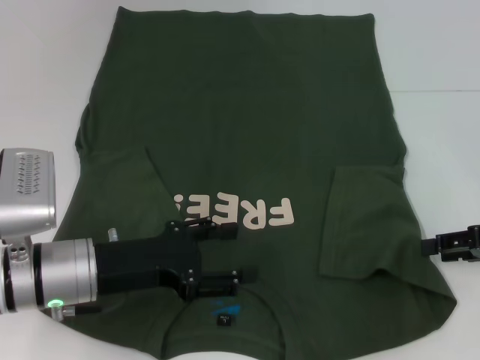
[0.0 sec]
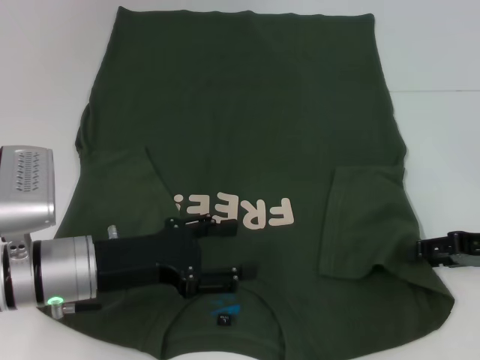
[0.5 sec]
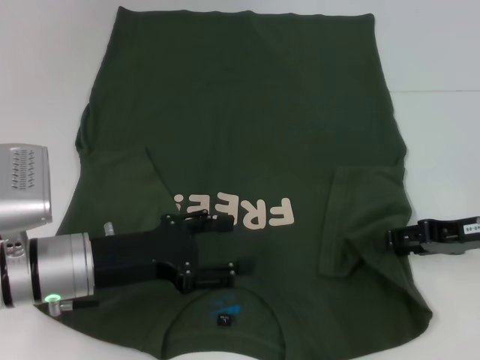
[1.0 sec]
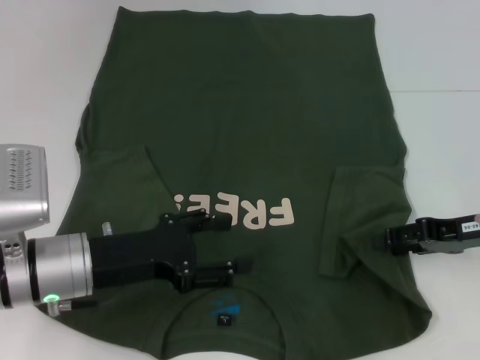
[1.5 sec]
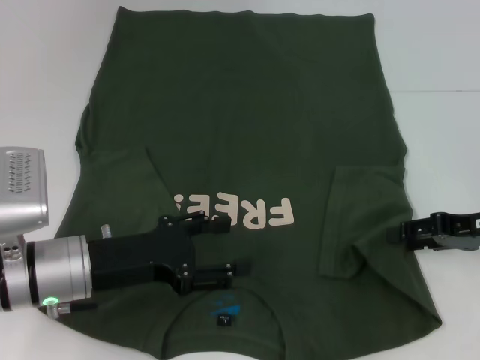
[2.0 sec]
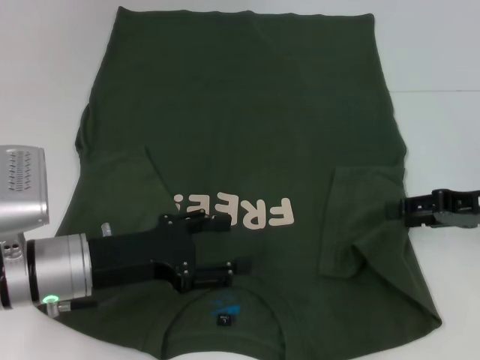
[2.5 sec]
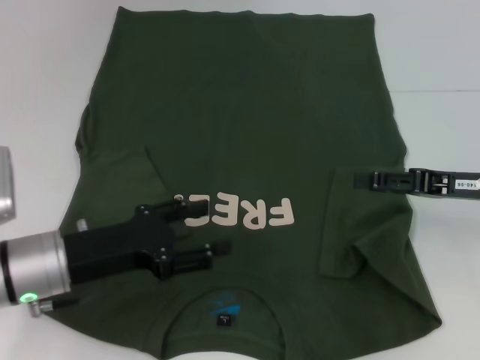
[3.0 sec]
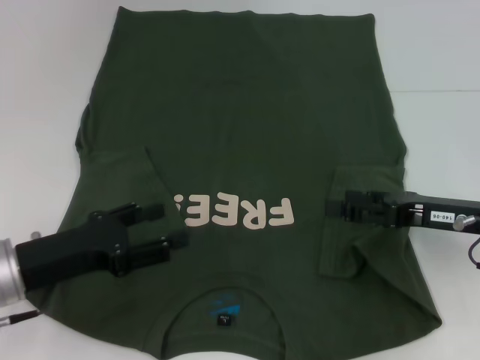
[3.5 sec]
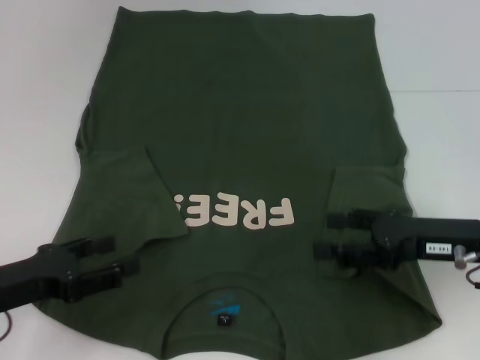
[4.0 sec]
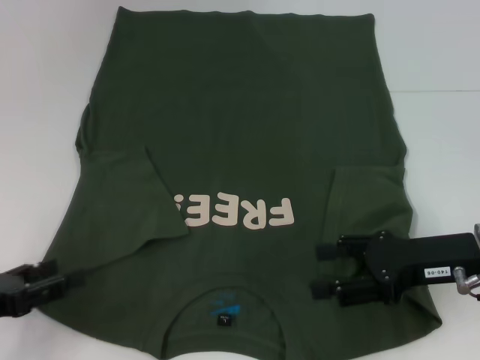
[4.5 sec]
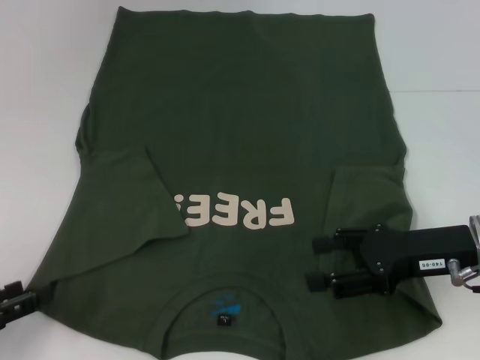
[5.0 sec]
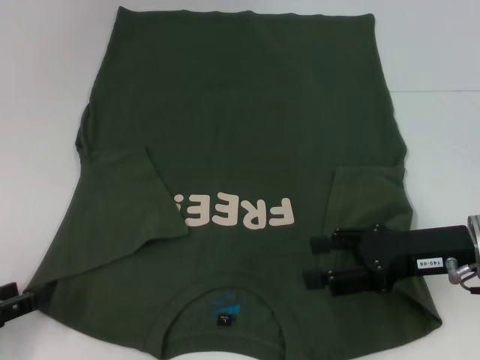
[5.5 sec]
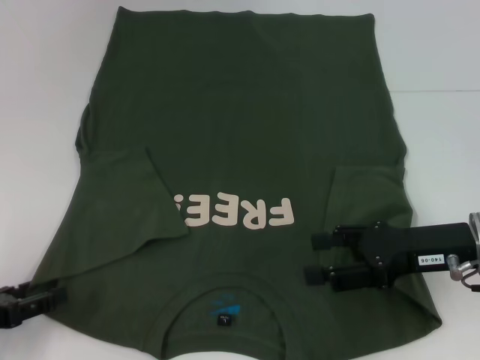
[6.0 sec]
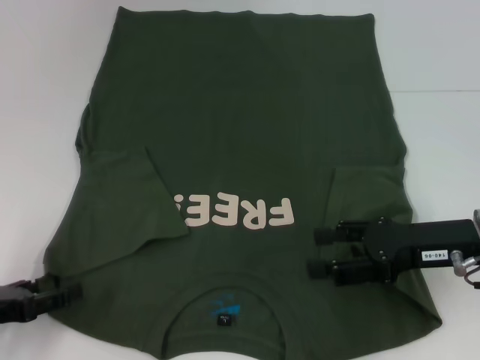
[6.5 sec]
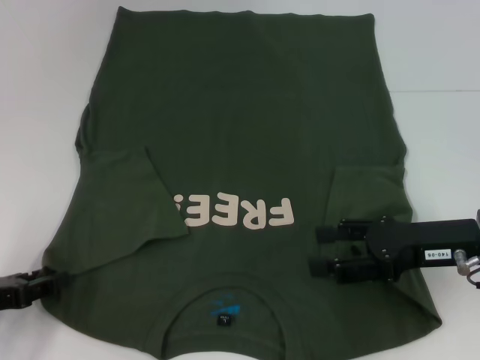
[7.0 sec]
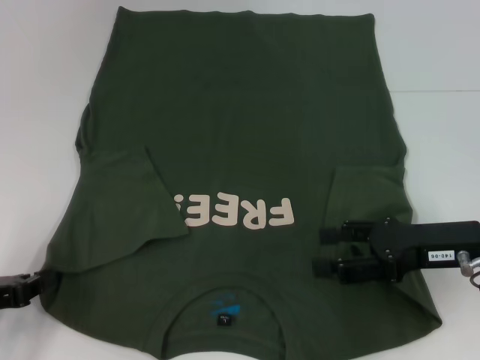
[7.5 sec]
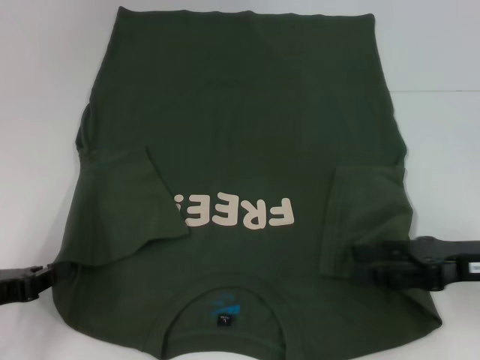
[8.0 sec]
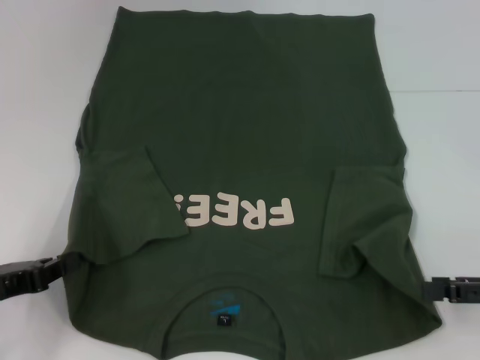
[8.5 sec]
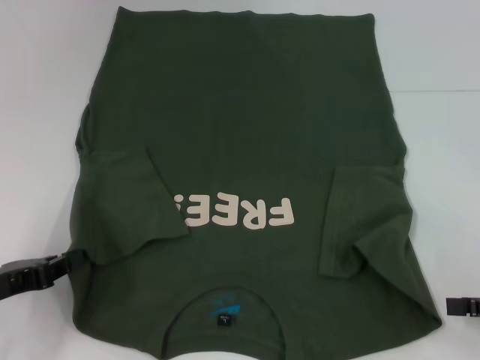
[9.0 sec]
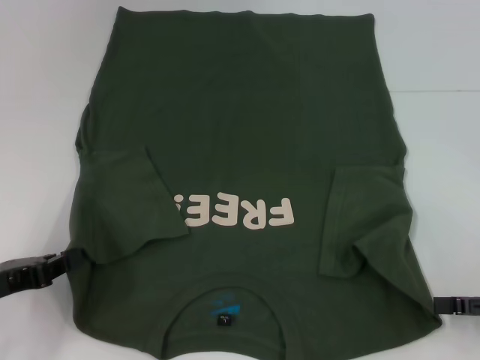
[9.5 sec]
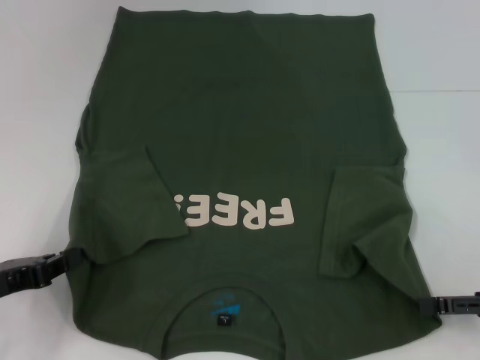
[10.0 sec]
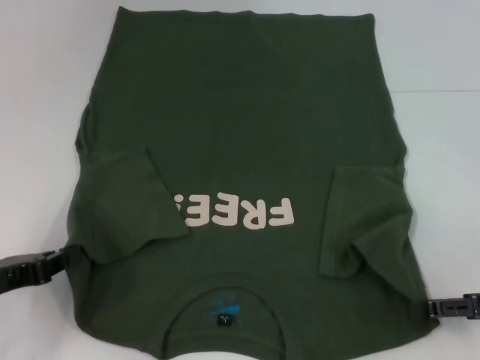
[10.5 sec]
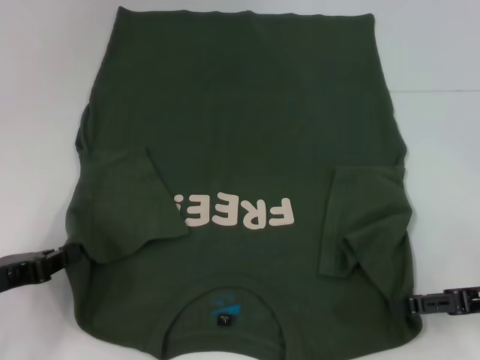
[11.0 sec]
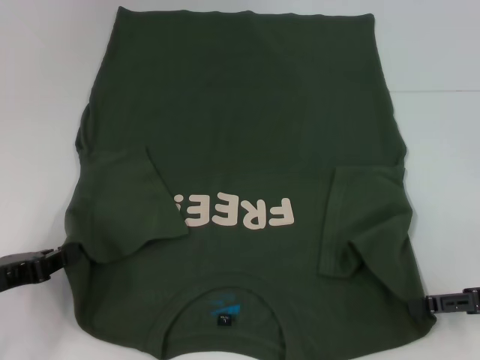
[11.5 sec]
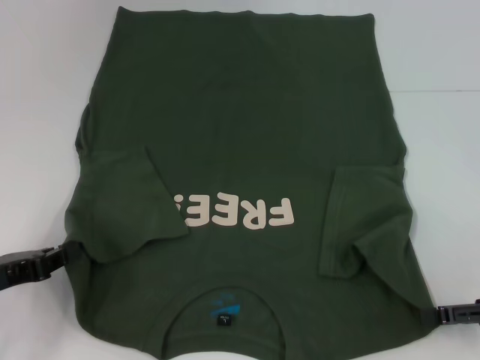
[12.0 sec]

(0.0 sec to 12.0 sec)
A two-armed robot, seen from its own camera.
Step, 0.0 sec - 8.0 sec: Grab the bottom left corner with your left hand.
0.0 sec - 2.0 sec: The grippers make only small movements.
2.0 sec - 4.0 sec: The left gripper shifts about 10 cm to the left. Meanwhile the right gripper heads to the left, covering about 5 cm.
4.0 sec - 6.0 sec: The left gripper shifts approximately 5 cm to the left.
6.0 sec - 8.0 sec: The left gripper closes up.
8.0 sec - 10.0 sec: The right gripper moves to the right, about 5 cm.
10.0 sec - 12.0 sec: There are only small adjustments of the grippers.

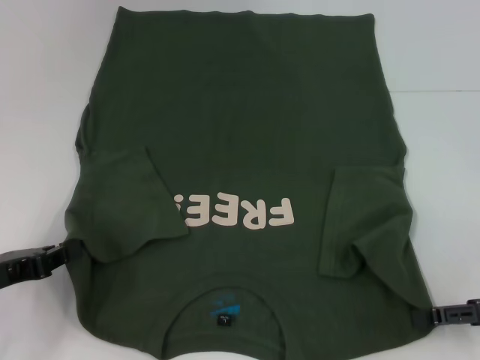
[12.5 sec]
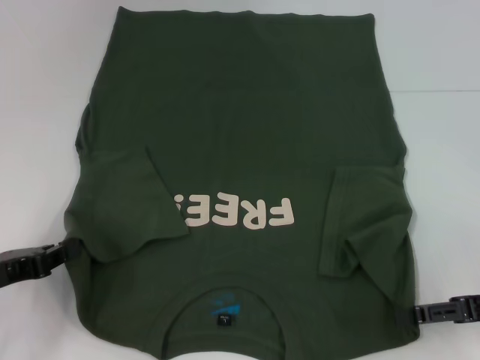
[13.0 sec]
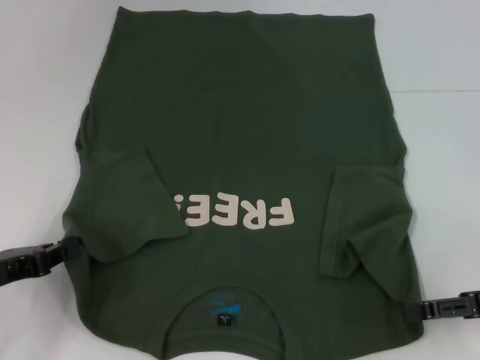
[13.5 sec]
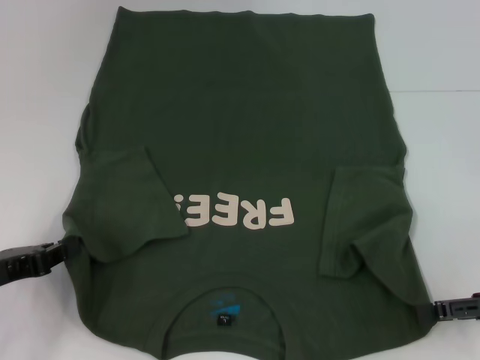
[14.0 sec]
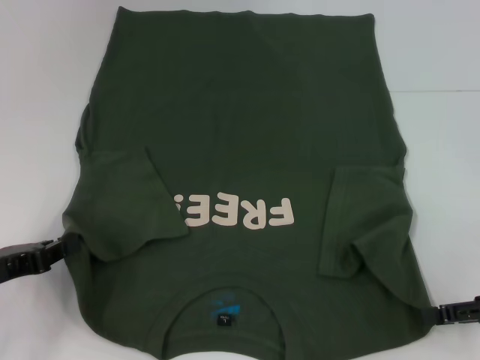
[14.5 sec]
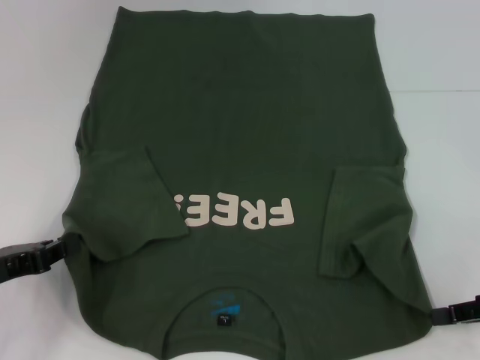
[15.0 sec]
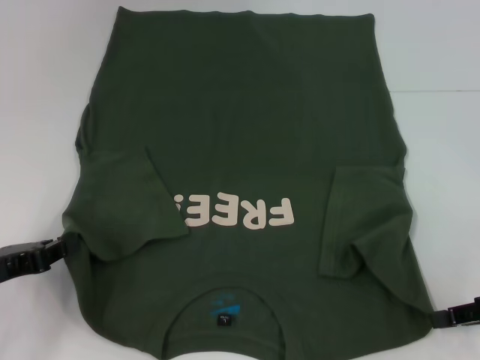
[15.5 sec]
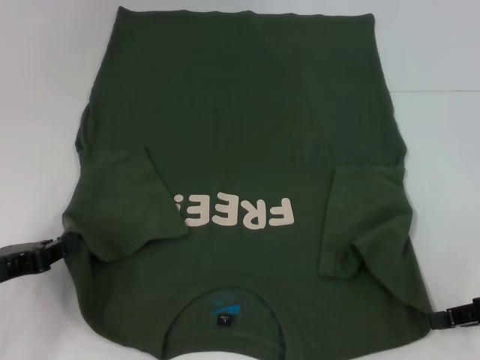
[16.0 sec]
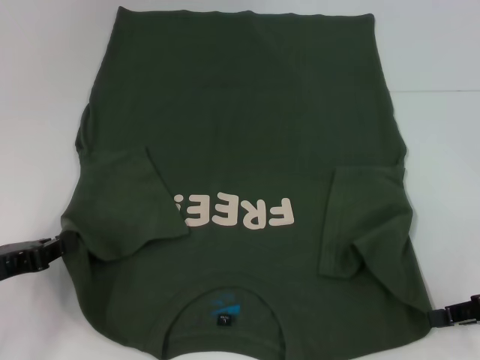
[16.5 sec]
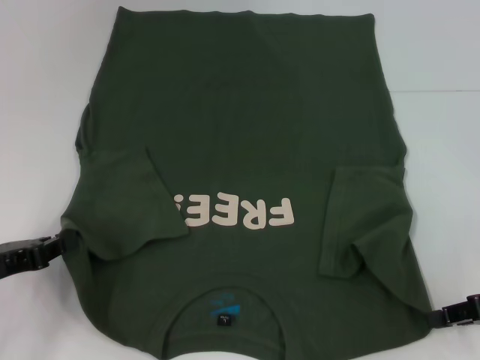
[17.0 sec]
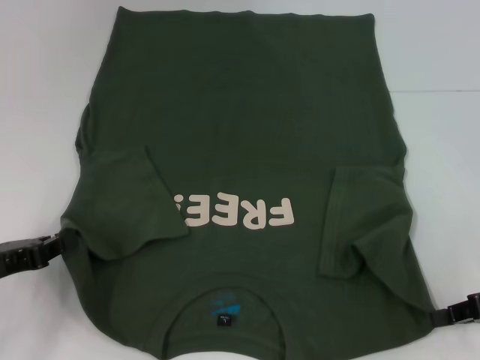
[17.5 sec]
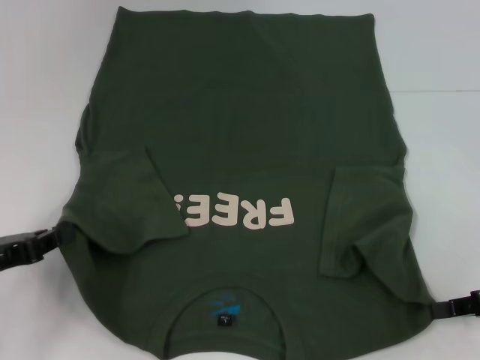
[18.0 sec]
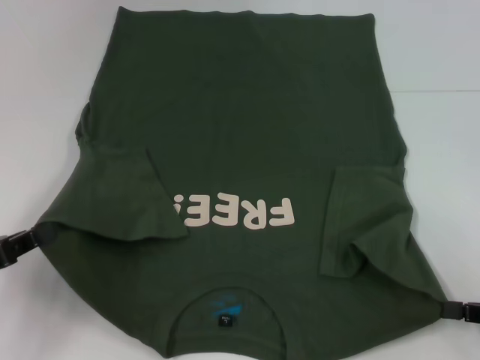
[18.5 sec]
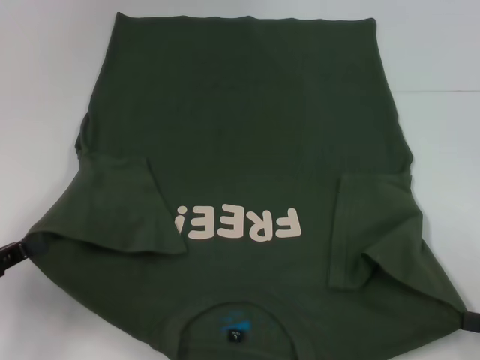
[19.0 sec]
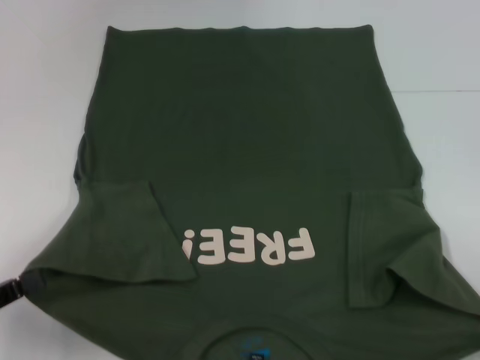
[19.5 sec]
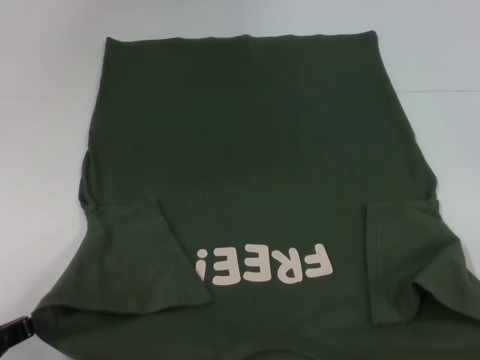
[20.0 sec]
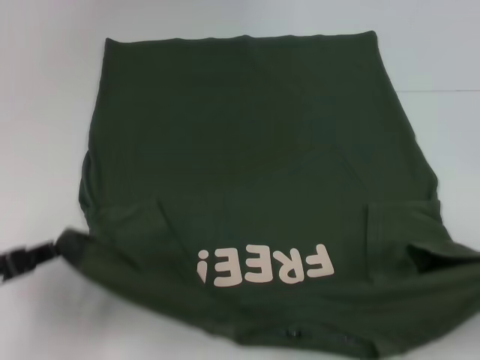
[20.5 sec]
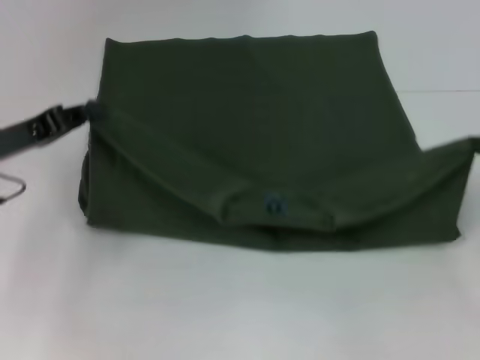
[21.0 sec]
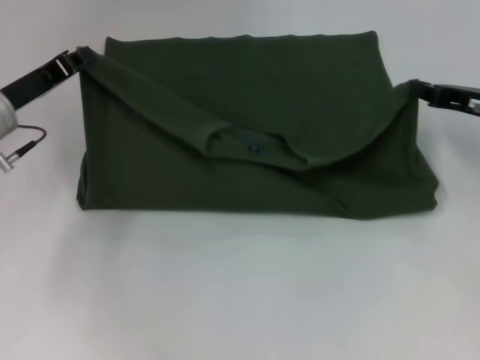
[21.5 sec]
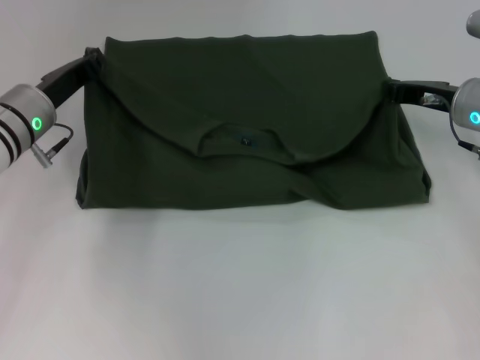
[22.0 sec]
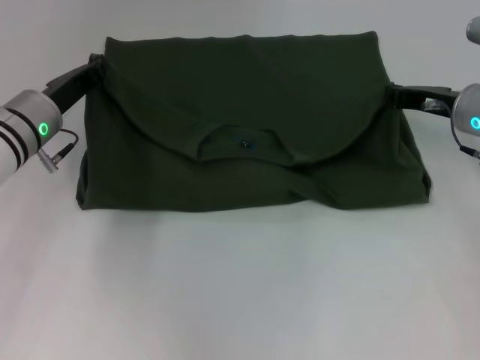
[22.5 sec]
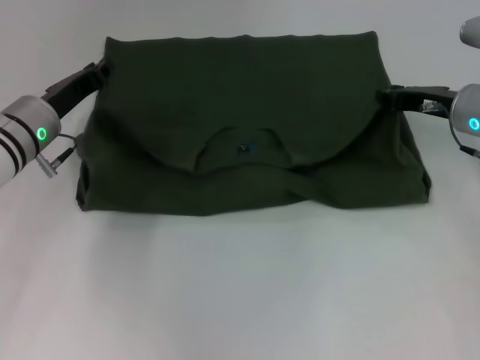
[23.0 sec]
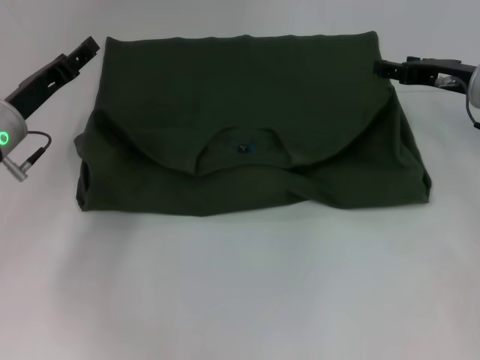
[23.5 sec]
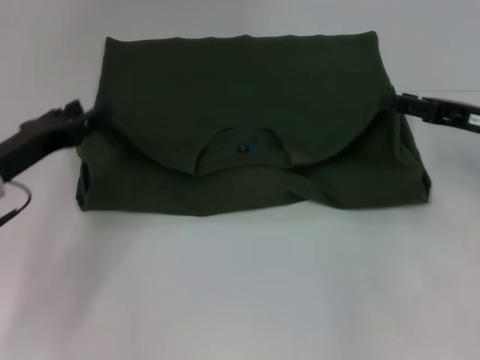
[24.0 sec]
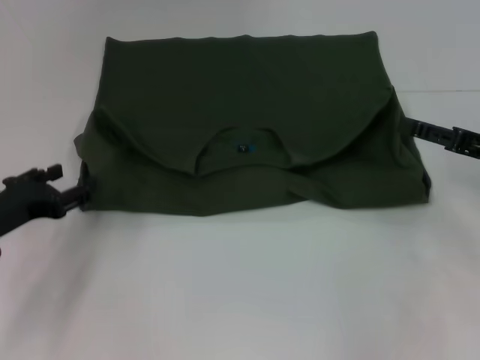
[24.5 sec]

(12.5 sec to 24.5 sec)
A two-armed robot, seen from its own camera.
Step, 12.5 sec - 17.5 sec: Grab the bottom right corner with your right hand.
Step, 18.0 sec - 23.0 sec: Fold the clothes with your left hand.
Step, 18.0 sec - 23.0 sec: Fold the clothes with your right hand.
12.5 sec - 14.5 sec: The grippers stay close to where they were, moving slightly.
16.5 sec - 18.5 sec: The grippers stay close to where they were, moving slightly.
18.5 sec - 20.5 sec: The right gripper heads to the right, covering some 5 cm.
20.5 sec - 22.5 sec: The left gripper shifts approximately 25 cm forward and to the right. Meanwhile the right gripper goes approximately 30 cm forward and to the left.
22.5 sec - 24.5 sec: The right gripper goes some 10 cm backward and to the right, and opens. Meanwhile the left gripper shifts roughly 15 cm backward and to the left, and opens.

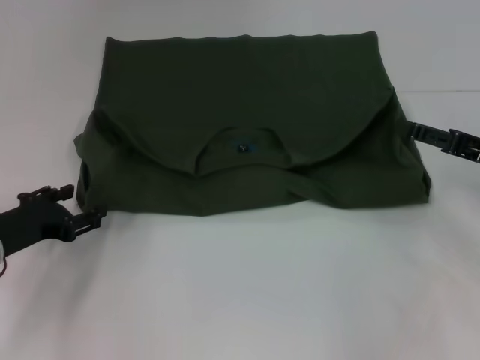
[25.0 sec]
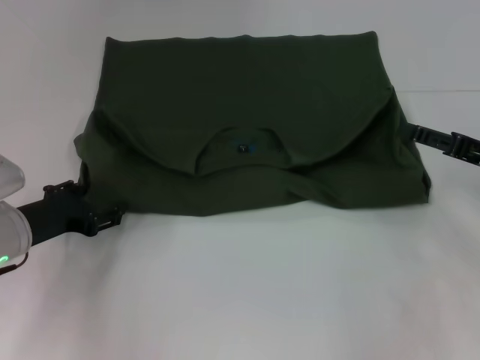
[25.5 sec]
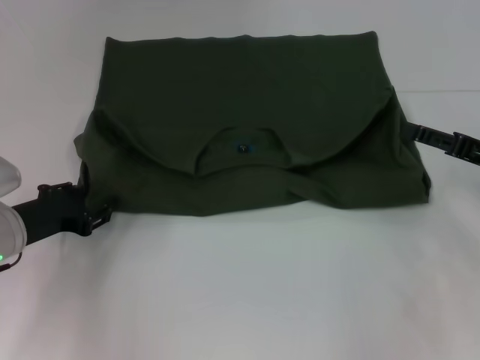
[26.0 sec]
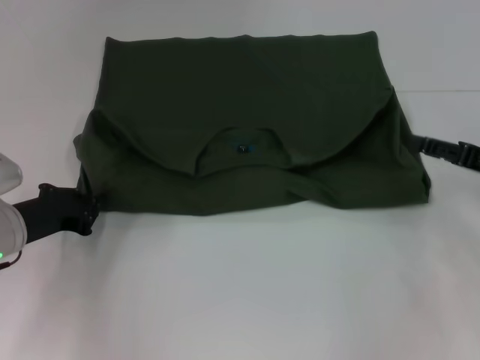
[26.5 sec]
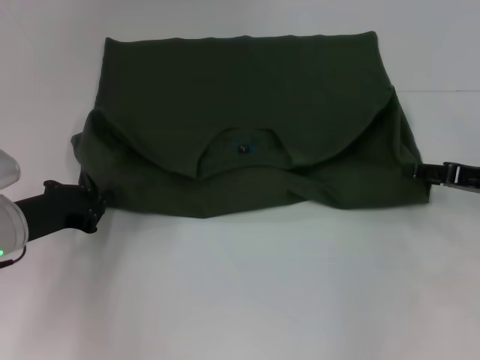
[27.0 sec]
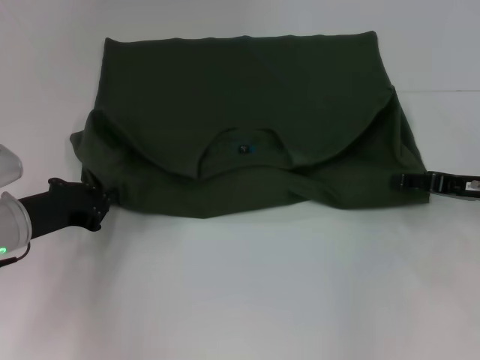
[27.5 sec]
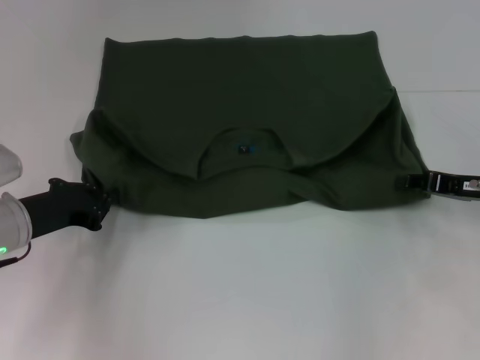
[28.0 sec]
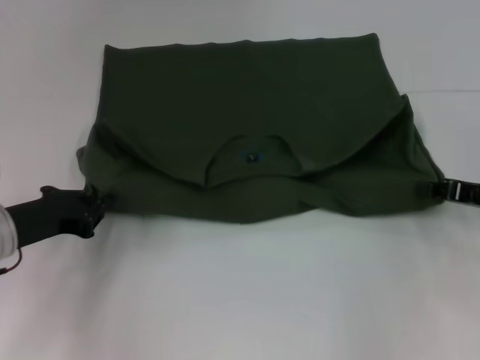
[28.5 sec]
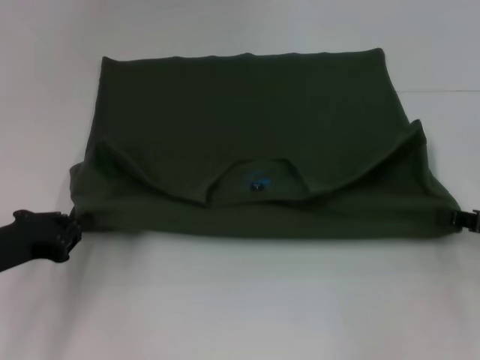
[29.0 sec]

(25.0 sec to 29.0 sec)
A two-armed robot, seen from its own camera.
25.0 sec - 27.0 sec: The left gripper closes its fingers.
27.0 sec - 29.0 sec: The right gripper is displaced backward by some 5 cm, and closes. The left gripper moves approximately 5 cm.
